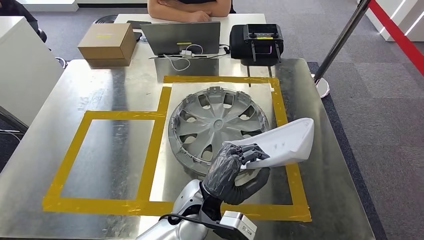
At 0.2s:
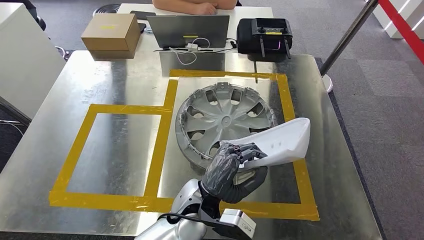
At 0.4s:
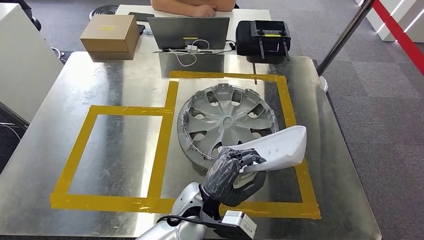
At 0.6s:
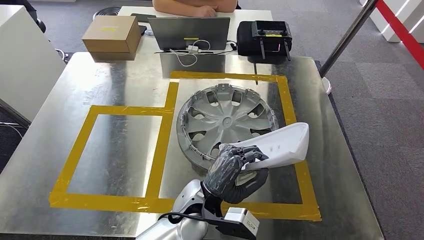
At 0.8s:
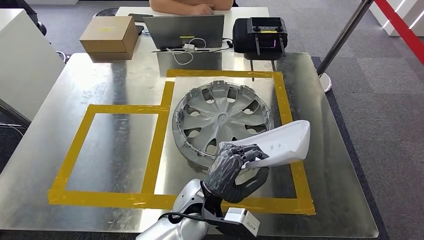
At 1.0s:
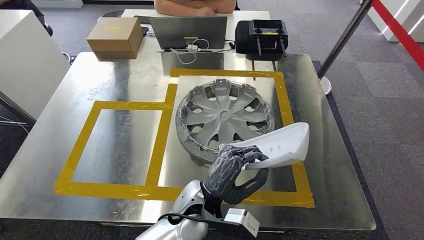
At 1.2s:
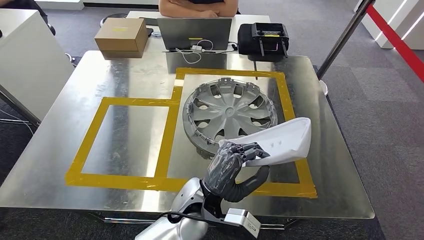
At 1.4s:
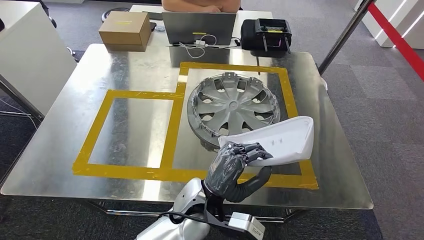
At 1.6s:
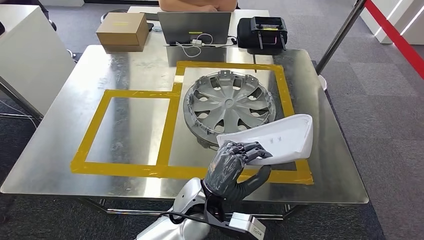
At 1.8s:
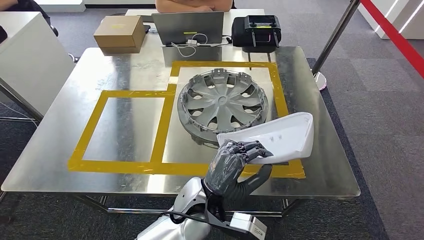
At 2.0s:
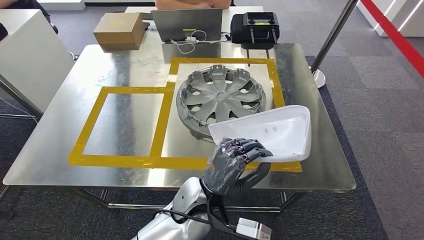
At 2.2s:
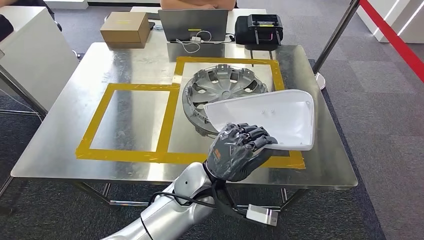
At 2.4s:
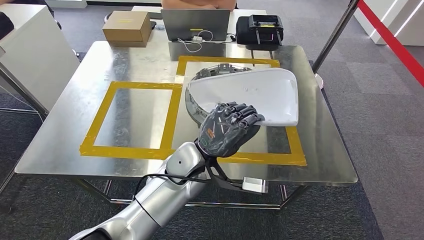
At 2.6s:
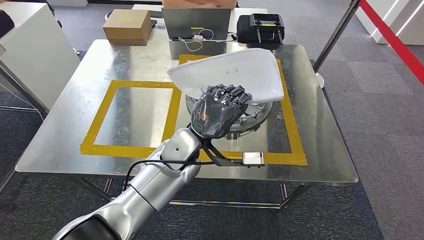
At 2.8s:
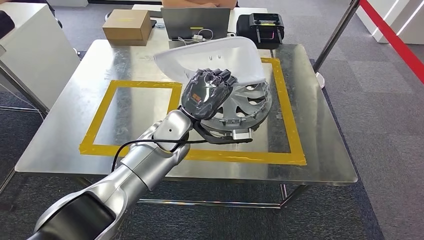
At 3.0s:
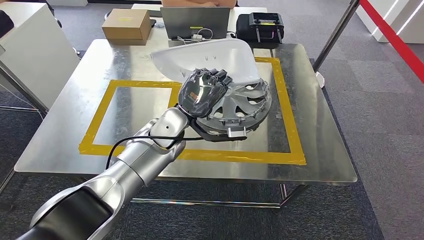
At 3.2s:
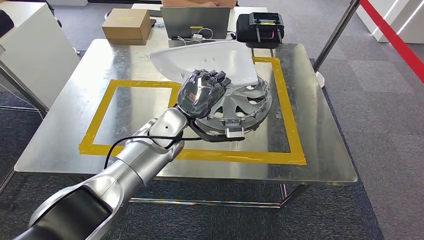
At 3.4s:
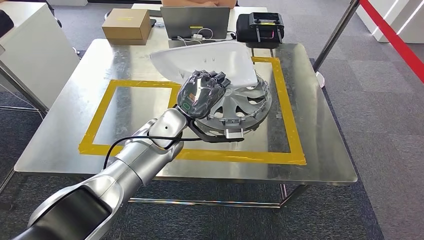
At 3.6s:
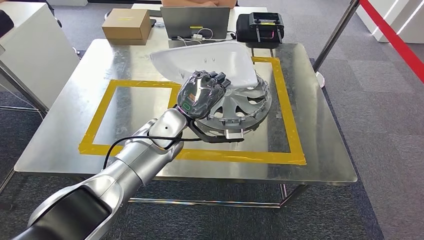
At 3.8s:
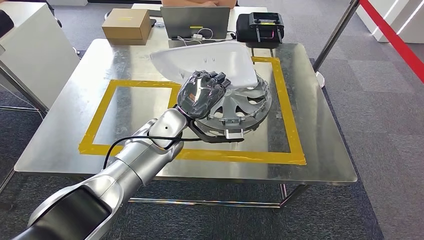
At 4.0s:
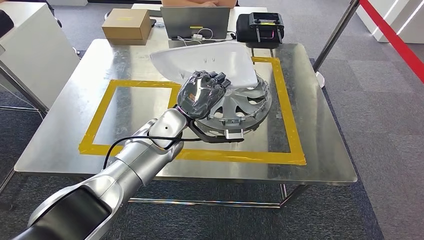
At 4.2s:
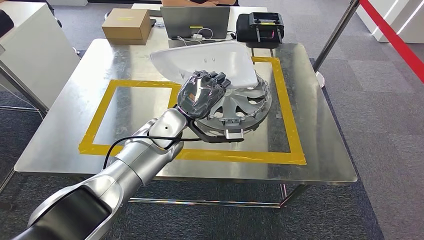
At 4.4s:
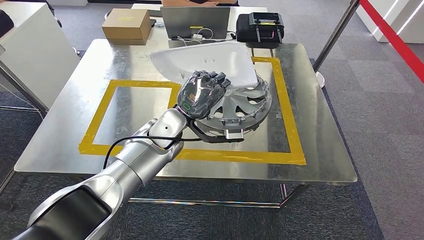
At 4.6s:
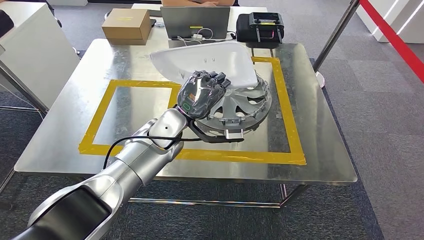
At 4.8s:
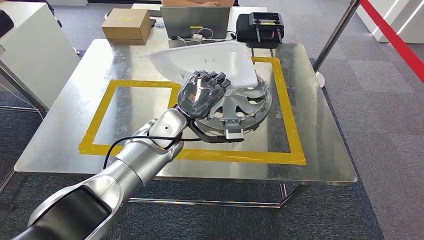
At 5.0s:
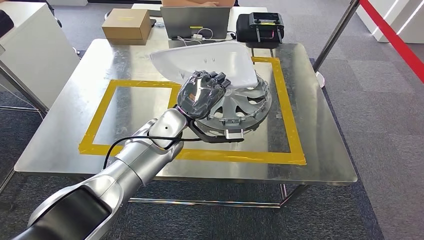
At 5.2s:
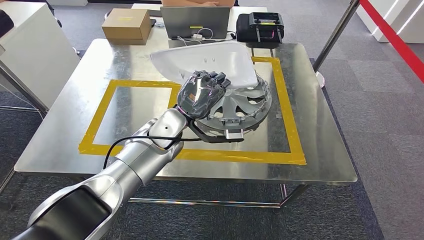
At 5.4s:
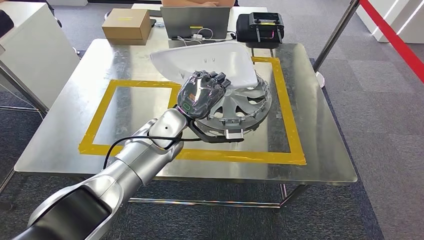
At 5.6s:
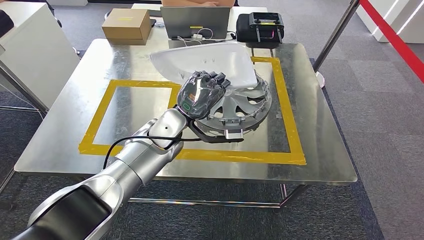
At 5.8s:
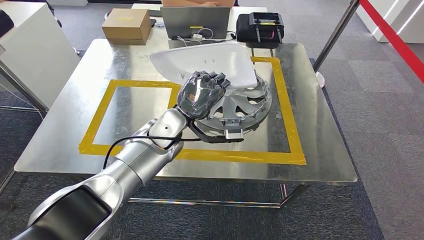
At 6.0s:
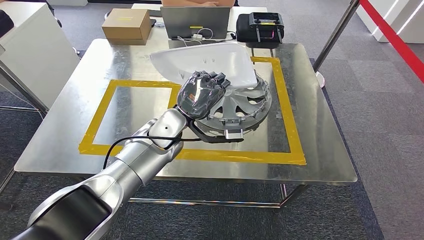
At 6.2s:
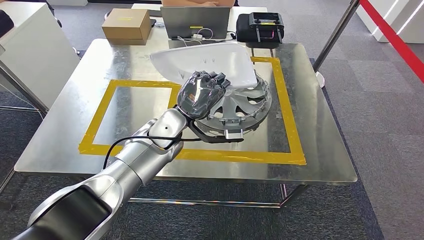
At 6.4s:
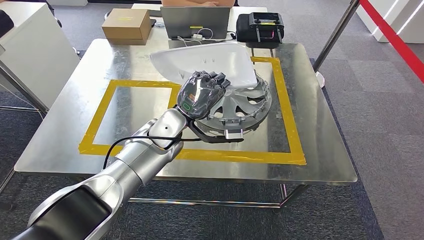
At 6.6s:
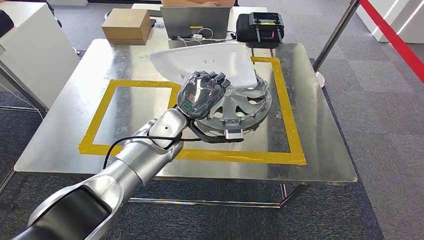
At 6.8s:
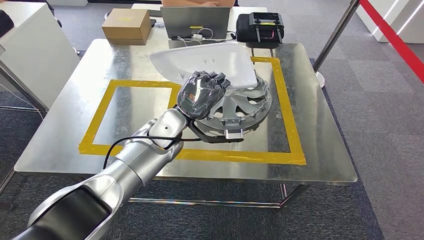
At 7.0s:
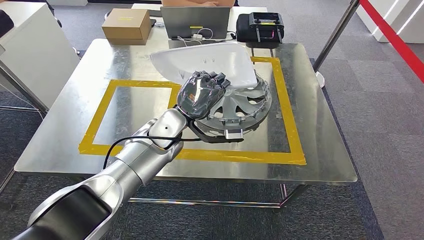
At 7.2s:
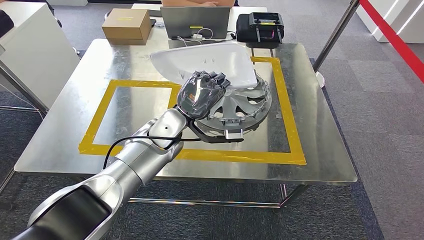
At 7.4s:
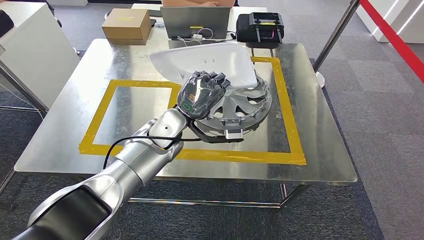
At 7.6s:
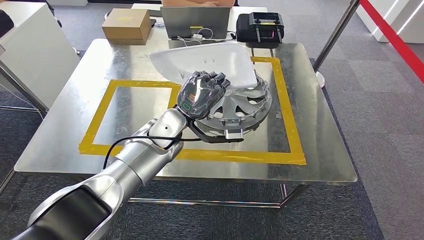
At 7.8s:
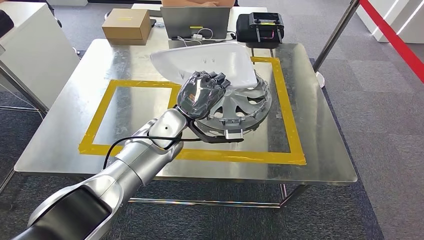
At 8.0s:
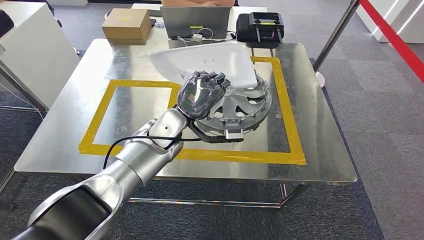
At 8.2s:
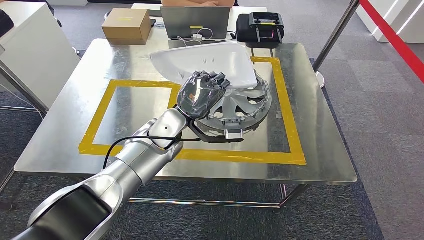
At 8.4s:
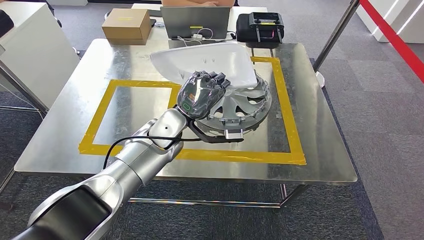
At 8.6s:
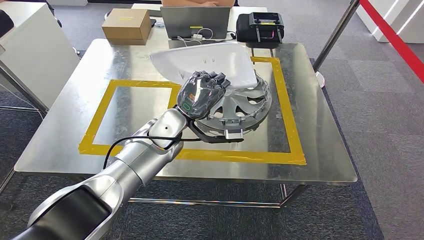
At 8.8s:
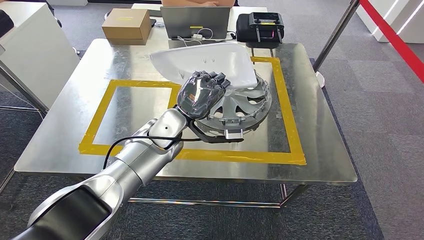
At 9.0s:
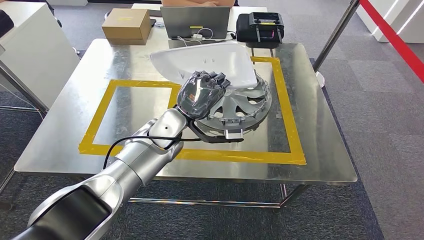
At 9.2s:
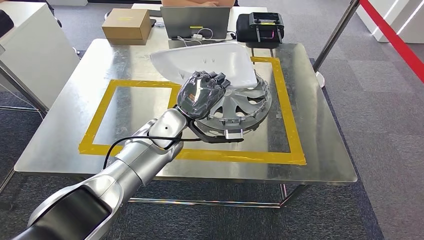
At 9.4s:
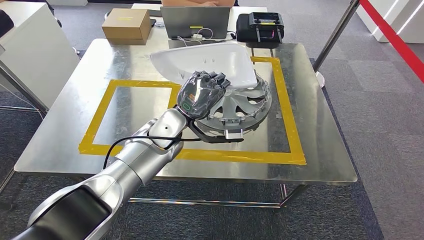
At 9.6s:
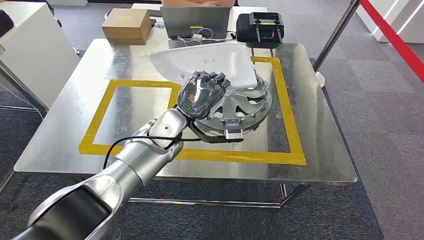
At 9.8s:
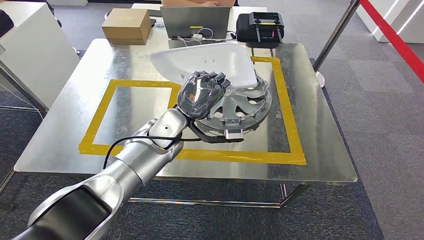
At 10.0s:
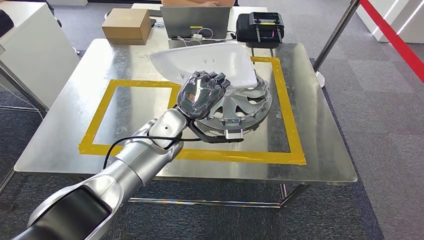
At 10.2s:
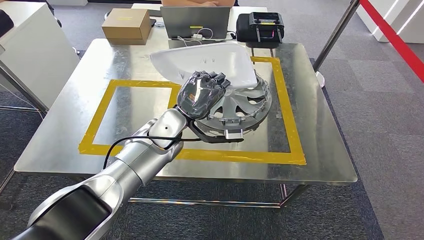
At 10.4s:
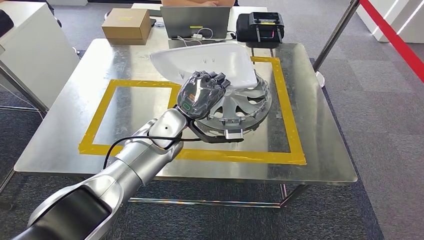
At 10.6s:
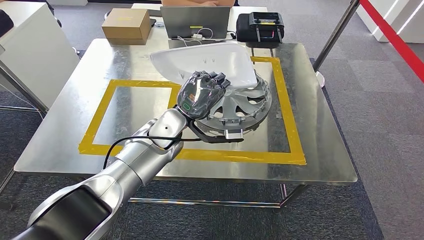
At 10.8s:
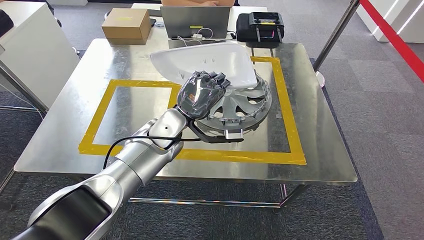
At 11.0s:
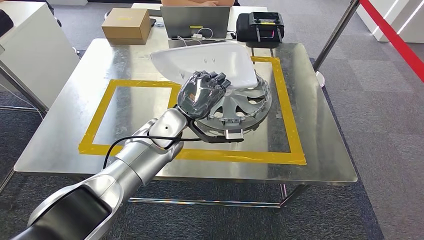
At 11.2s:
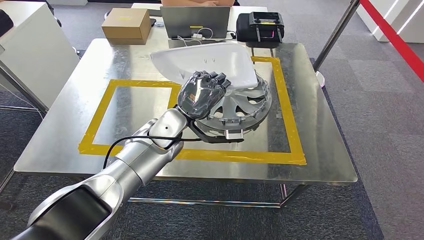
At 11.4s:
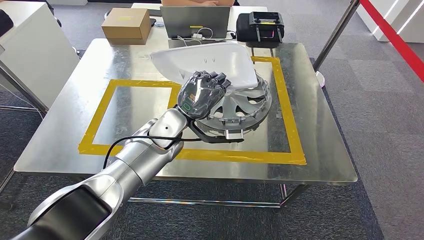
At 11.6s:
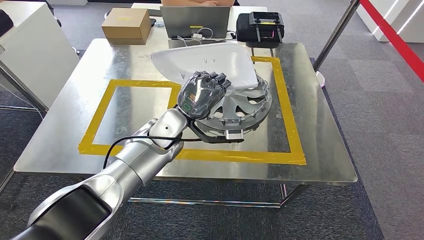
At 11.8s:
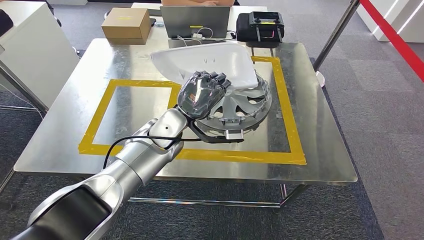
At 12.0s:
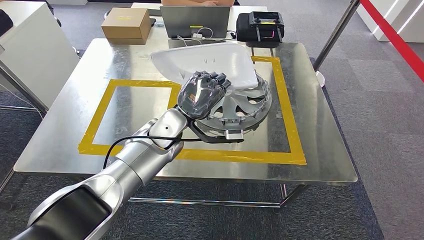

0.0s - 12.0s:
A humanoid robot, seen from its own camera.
3.0s - 12.0s: Neither hand changes place.

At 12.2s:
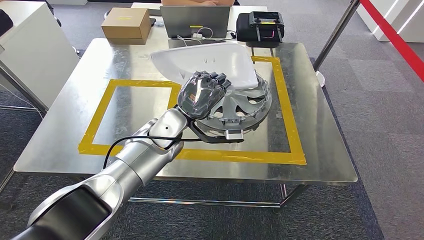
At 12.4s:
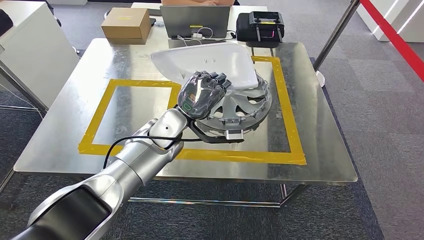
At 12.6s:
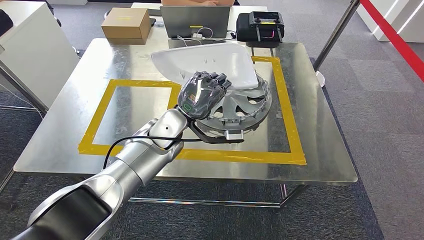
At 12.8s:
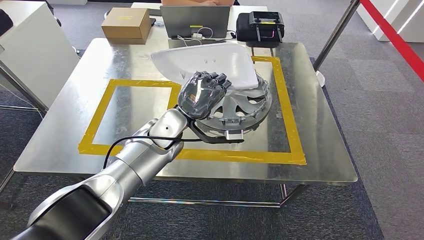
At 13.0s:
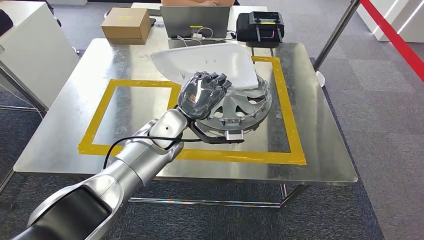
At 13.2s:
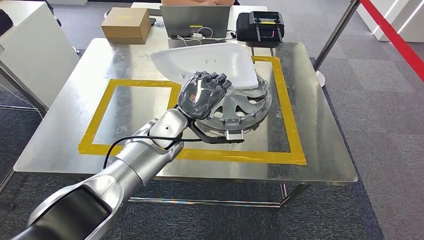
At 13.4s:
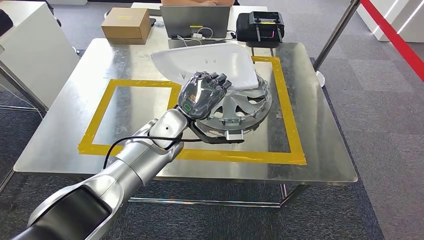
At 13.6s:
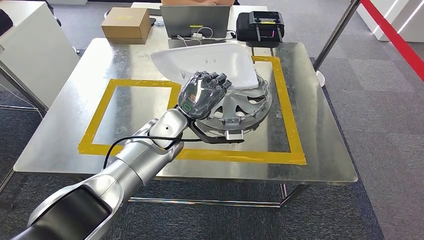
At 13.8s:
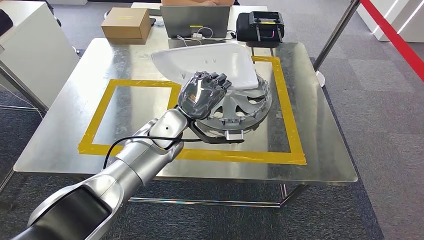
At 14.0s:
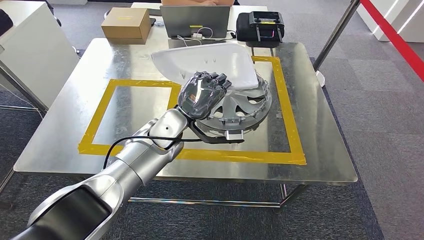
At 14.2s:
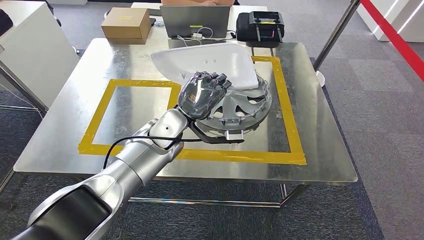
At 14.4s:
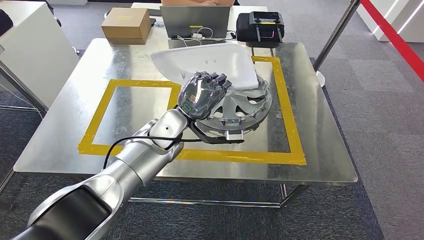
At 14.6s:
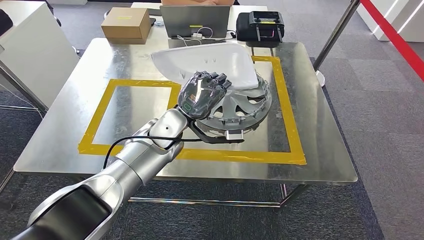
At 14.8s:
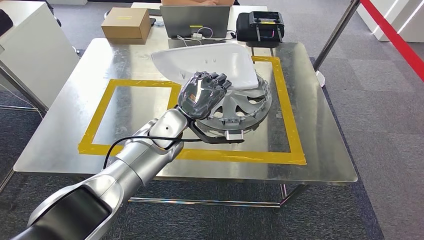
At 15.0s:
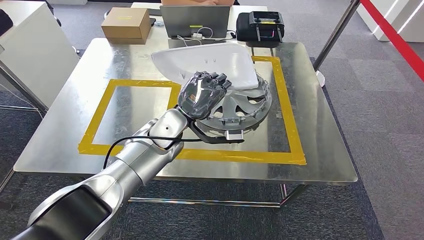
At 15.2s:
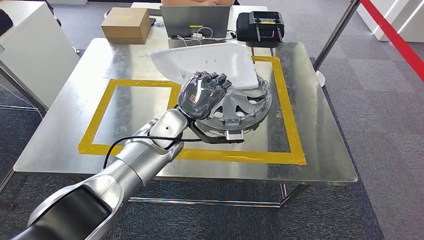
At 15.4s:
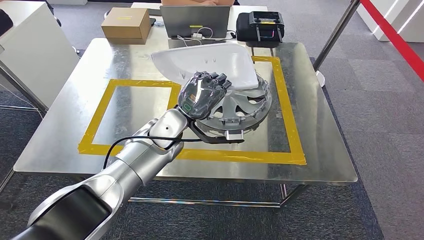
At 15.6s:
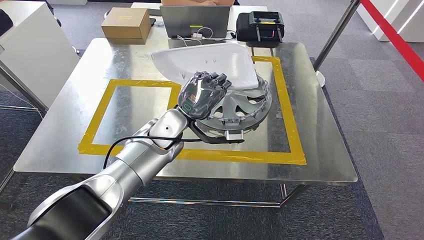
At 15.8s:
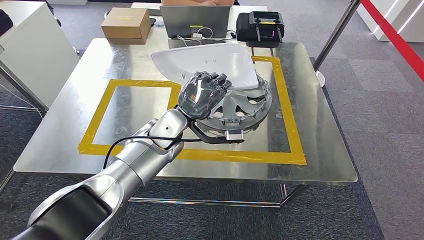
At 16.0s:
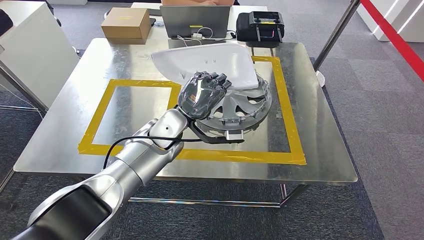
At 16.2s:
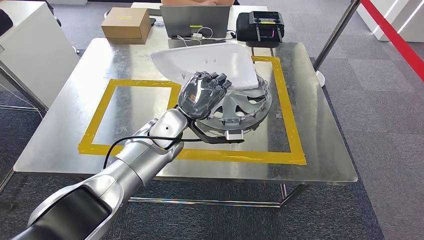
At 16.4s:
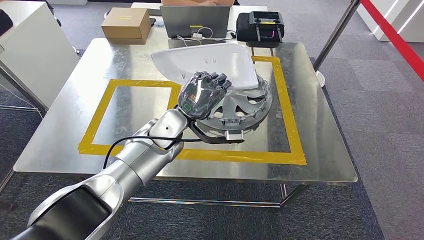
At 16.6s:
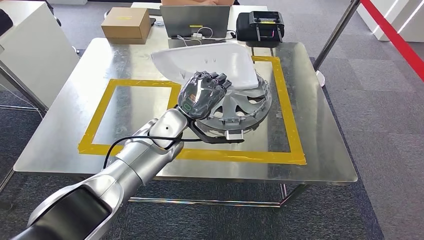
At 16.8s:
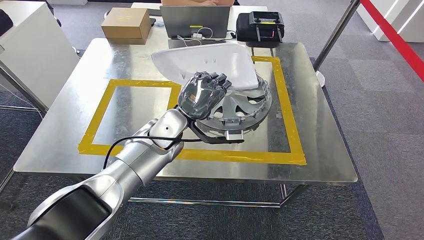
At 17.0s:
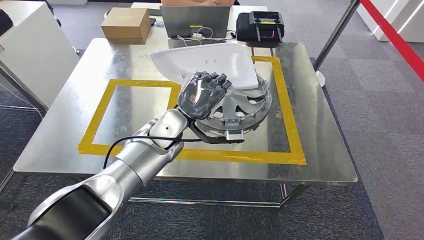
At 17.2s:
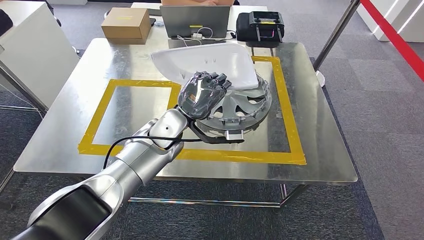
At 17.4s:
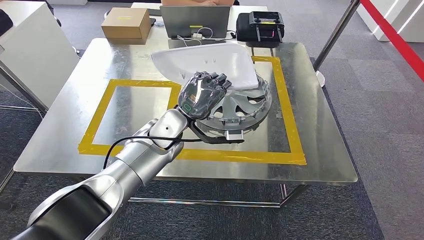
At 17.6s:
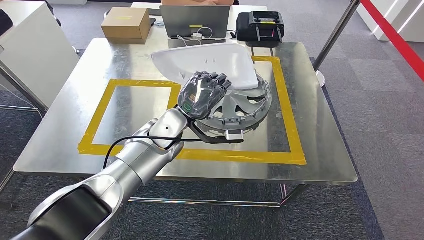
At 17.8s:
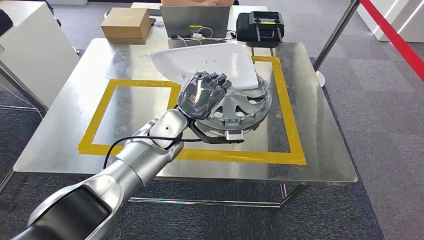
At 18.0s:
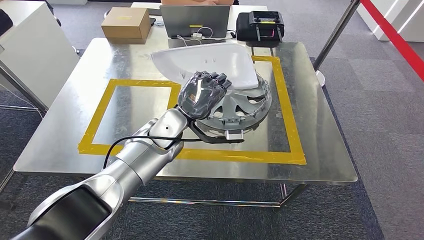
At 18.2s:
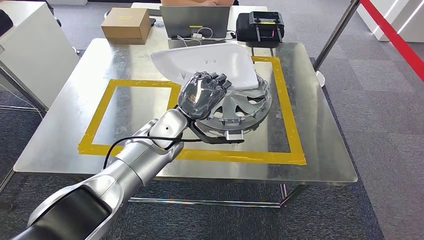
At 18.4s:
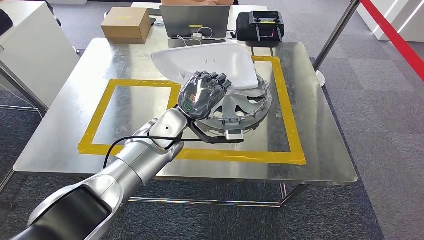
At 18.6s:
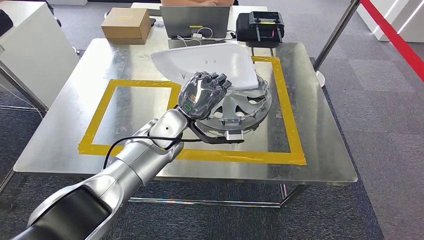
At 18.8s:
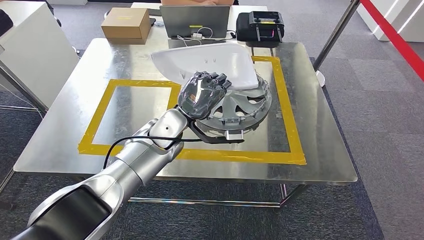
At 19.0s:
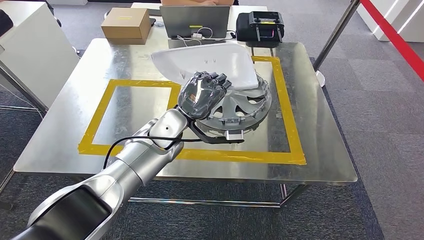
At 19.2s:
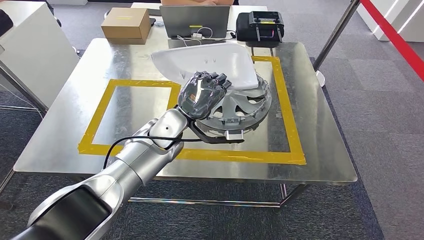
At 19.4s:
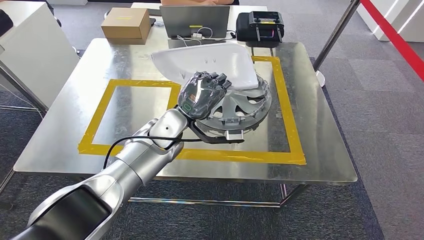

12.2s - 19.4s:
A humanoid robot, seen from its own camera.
12.2s - 19.4s: Both hands stay about where they are.
